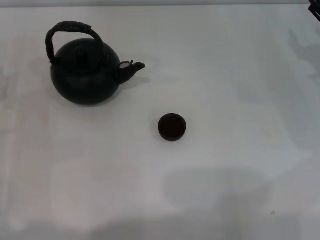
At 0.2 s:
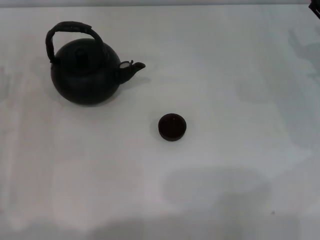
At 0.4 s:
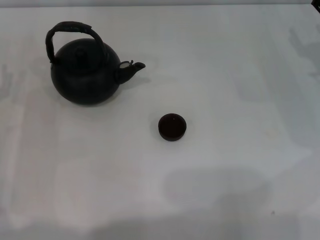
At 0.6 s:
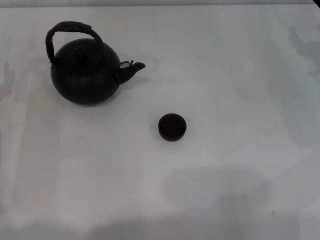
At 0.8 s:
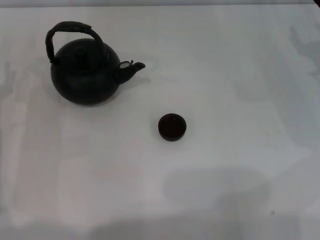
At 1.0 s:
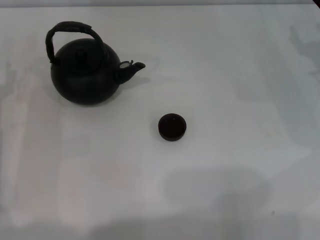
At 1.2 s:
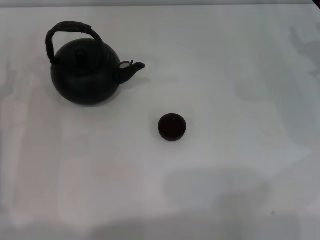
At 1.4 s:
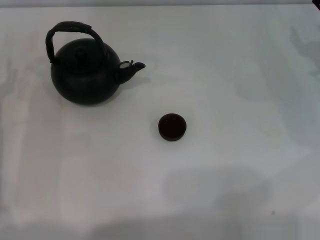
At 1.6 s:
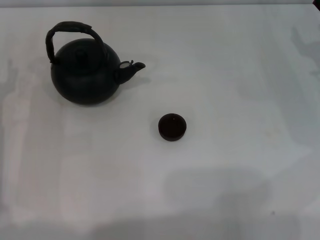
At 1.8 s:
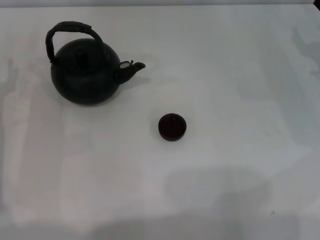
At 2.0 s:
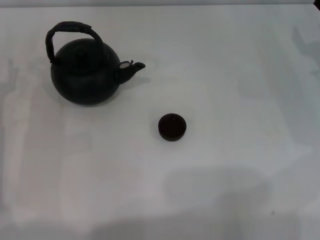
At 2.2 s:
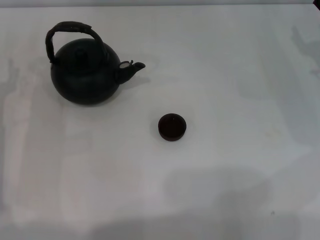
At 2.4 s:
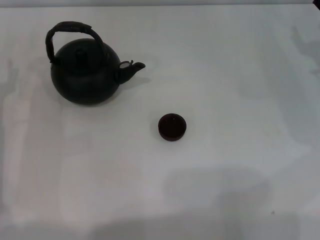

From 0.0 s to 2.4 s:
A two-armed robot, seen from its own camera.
Task of the whole recording: Grasp the handle of the teapot with one hand and pour tea into the teacup.
From 0.0 s to 1.2 s: Both grippers stay about where they are.
From 1.2 s to 2.4 s: Neither gripper changes place.

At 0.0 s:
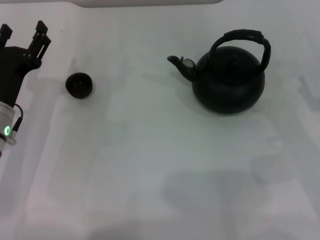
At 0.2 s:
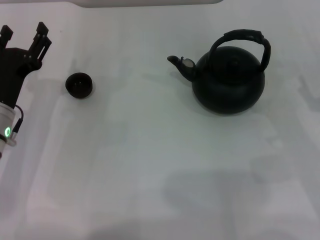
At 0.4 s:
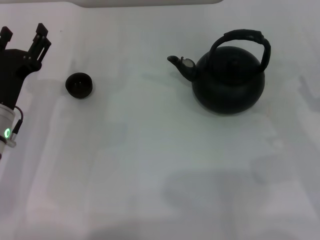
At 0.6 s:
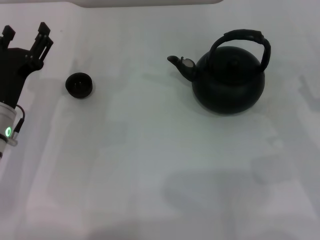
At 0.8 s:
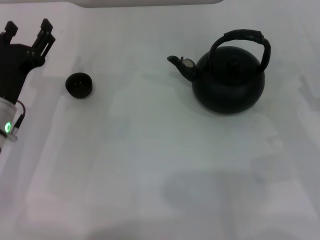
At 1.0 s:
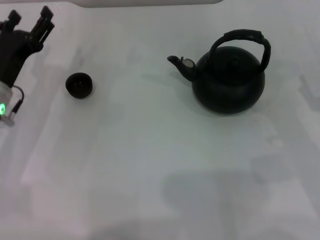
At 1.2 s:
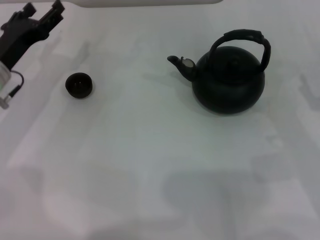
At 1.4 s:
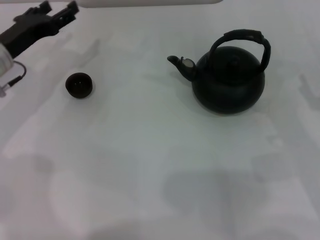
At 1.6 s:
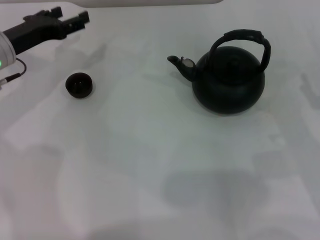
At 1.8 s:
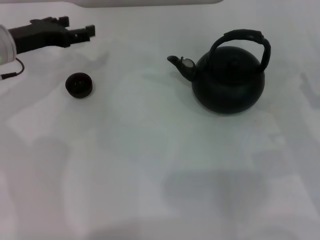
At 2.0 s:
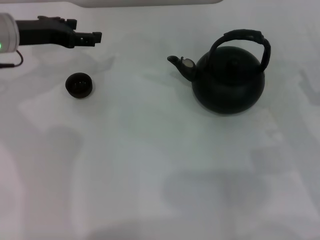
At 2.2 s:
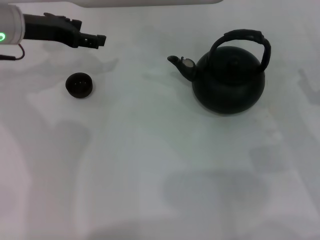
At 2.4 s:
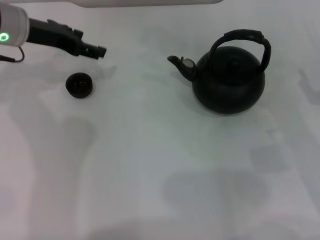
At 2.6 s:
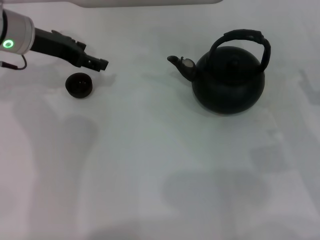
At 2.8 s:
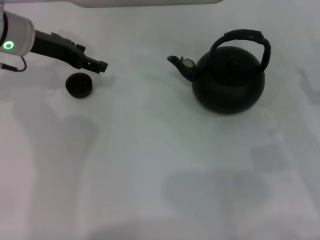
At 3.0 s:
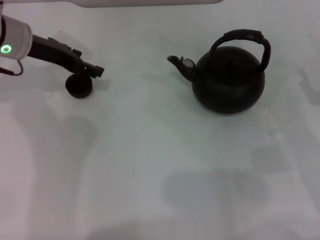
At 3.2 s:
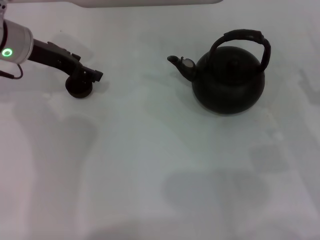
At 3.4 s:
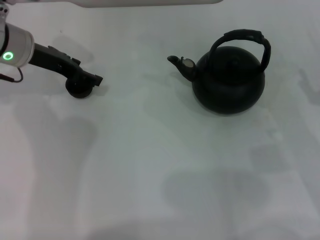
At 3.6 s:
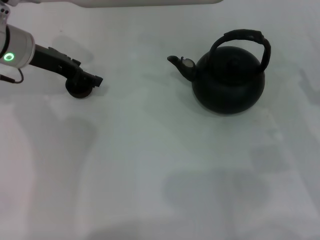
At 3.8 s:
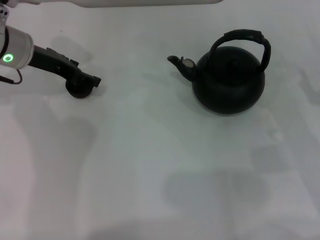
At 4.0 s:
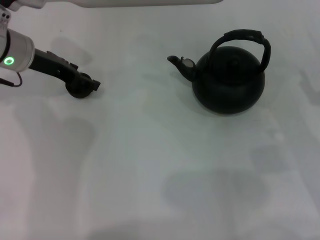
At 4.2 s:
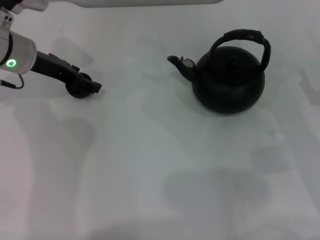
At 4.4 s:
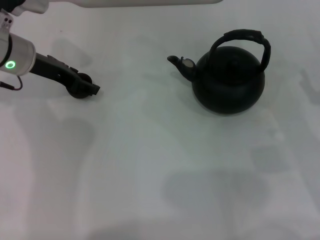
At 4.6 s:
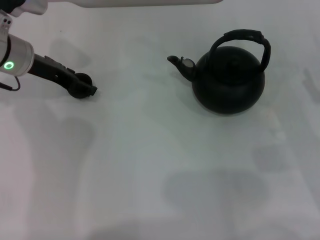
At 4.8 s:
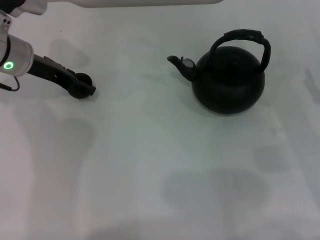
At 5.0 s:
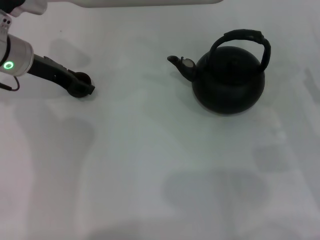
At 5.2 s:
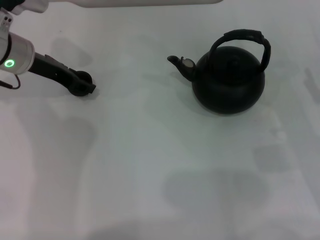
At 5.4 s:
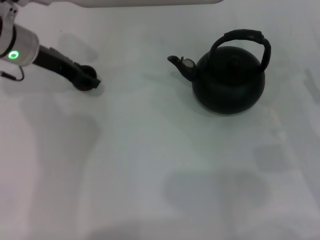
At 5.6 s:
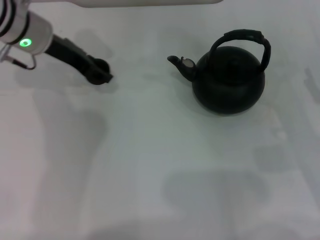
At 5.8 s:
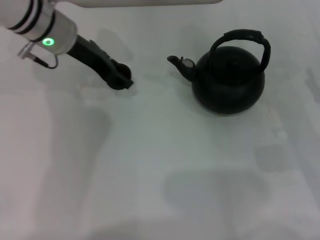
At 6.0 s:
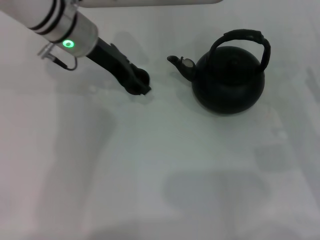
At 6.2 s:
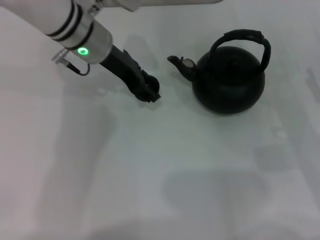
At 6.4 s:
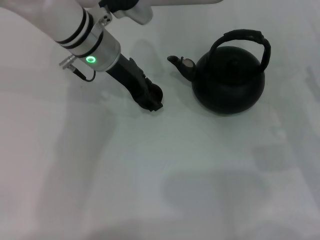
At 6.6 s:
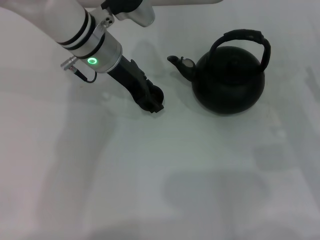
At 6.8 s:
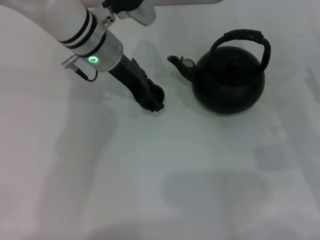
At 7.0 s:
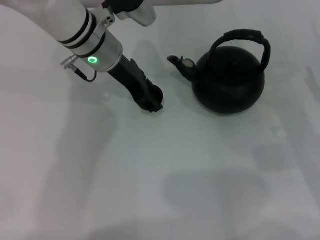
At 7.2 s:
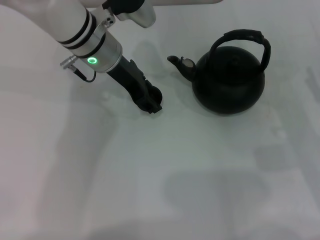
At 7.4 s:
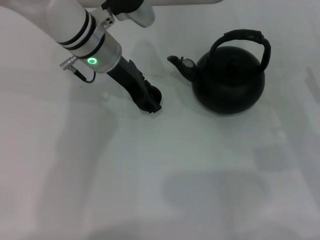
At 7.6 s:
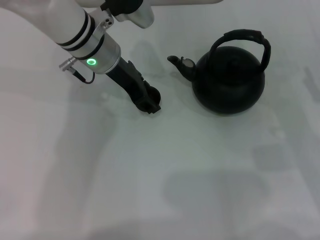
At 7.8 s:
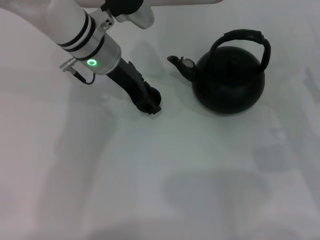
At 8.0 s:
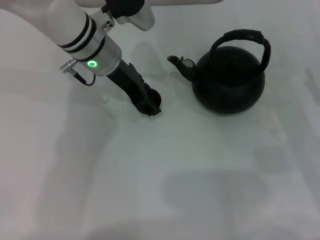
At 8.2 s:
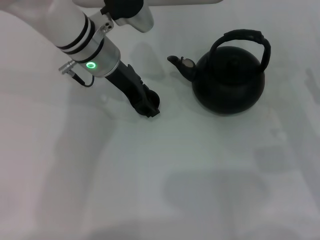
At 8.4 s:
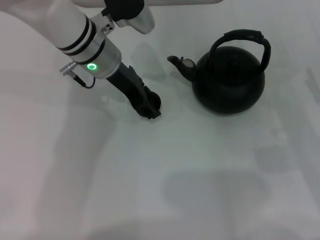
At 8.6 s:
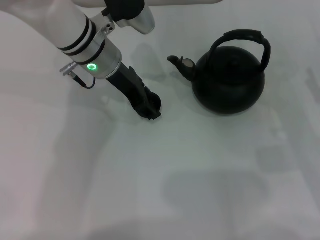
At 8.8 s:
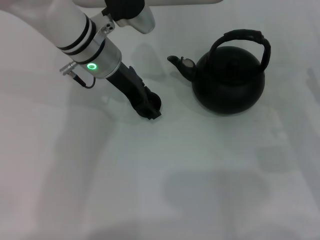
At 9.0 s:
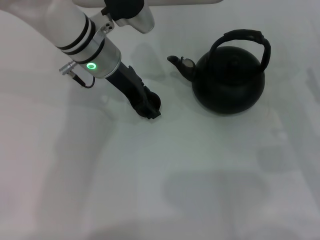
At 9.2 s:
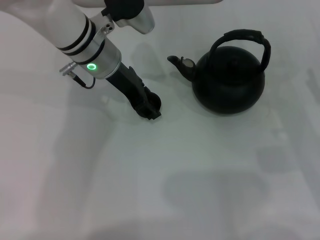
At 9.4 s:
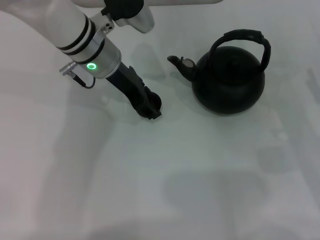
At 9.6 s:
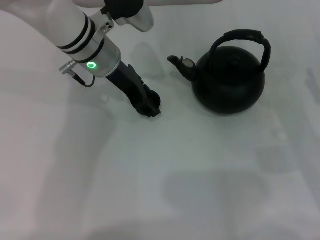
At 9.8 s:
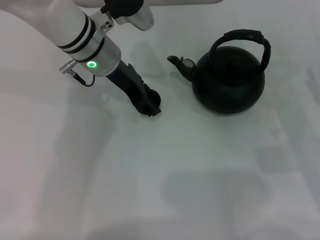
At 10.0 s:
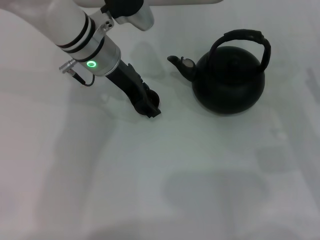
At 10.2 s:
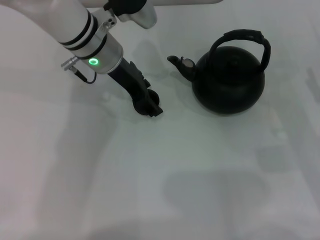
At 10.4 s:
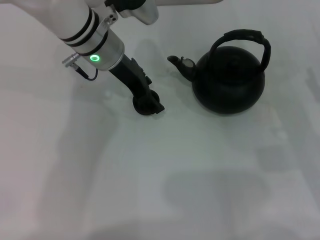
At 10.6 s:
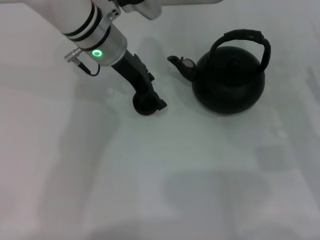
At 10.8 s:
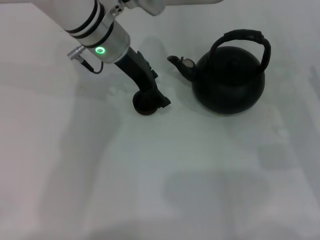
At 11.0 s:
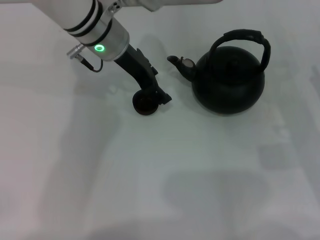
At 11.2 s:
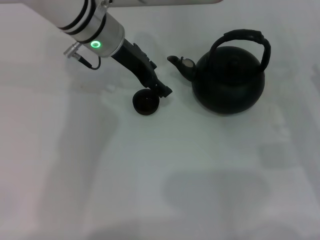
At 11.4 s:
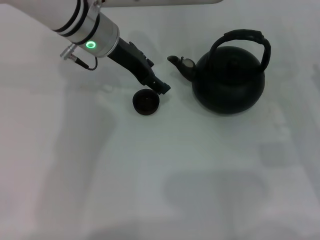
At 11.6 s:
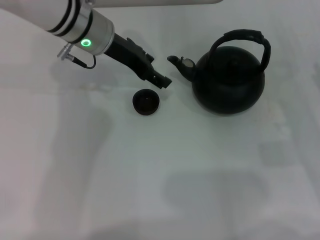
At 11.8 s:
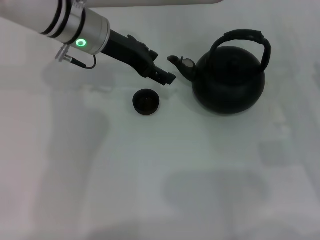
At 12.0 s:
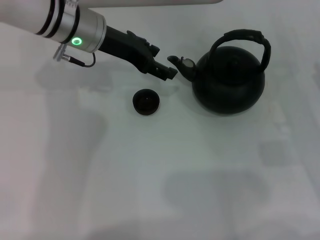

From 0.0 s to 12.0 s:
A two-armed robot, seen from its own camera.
Task of the whole recording: Grasp the handle of the teapot with one hand and pour tea into the teacup.
Step, from 0.0 s to 5.6 s: Pick up the teacup with the left gripper.
Step, from 5.8 s to 10.8 s: Place the teacup in the center of view with the left gripper.
From 0.0 s to 1.6 s: The left gripper is displaced forward and upward by roughly 10 cm.
From 1.6 s to 3.0 s: The left gripper ends up about 5 cm from where it was.
From 3.0 s to 4.4 s: The grippers move only a little.
From 4.4 s to 6.0 s: The left gripper moves to the right, some 10 cm.
From 6.0 s to 7.6 s: There are only small adjustments of the grippers.
From 7.6 s to 9.0 s: Neither gripper changes place.
From 9.0 s to 10.4 s: The left gripper opens up.

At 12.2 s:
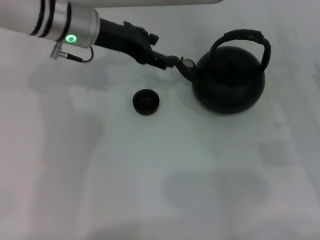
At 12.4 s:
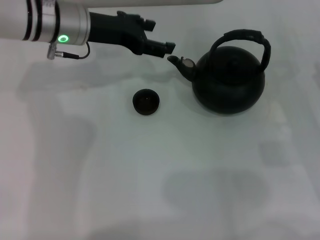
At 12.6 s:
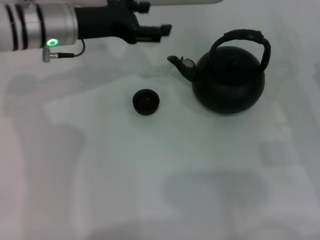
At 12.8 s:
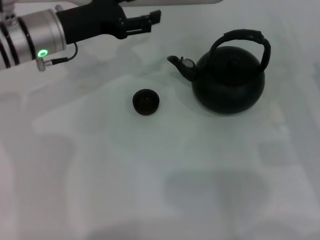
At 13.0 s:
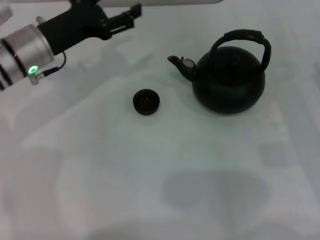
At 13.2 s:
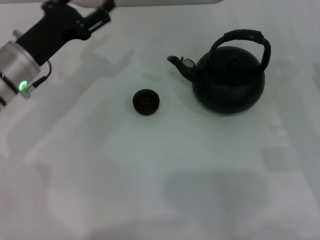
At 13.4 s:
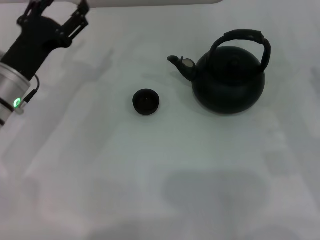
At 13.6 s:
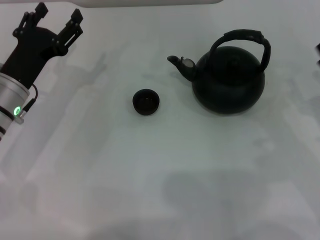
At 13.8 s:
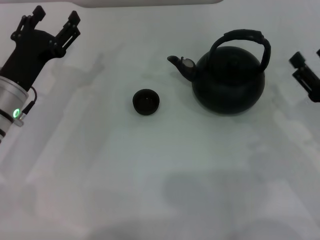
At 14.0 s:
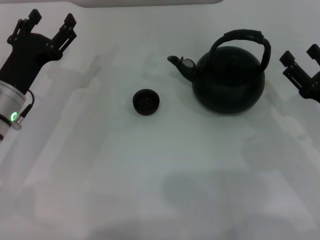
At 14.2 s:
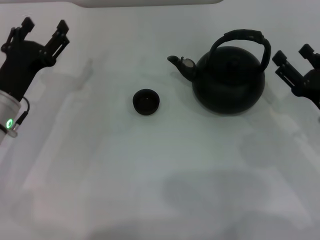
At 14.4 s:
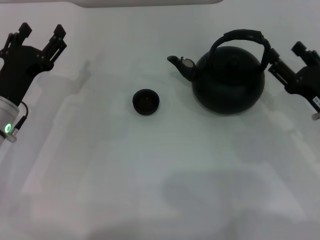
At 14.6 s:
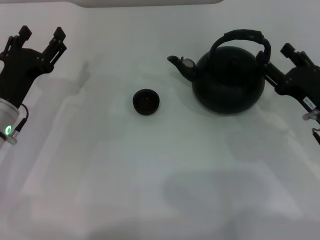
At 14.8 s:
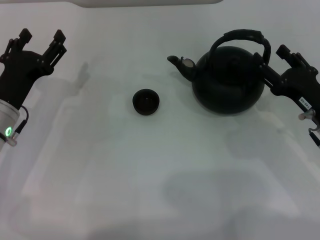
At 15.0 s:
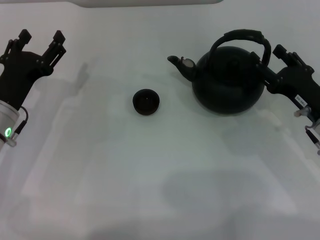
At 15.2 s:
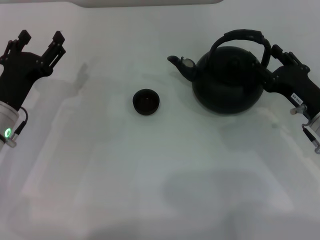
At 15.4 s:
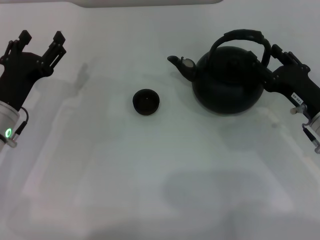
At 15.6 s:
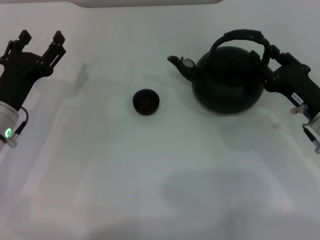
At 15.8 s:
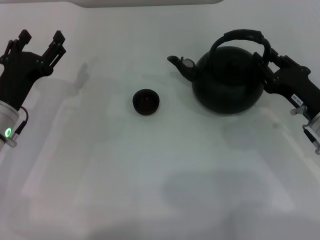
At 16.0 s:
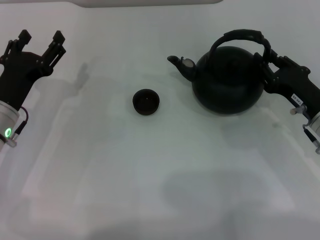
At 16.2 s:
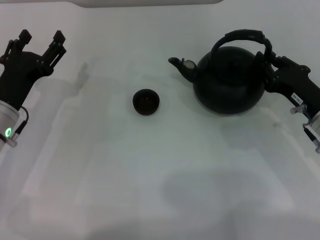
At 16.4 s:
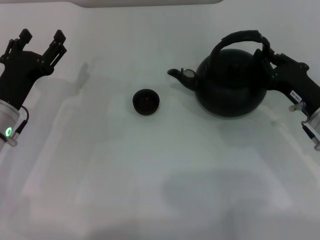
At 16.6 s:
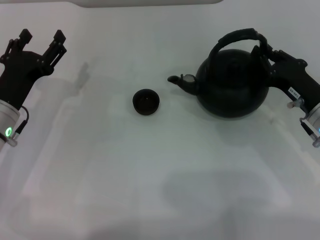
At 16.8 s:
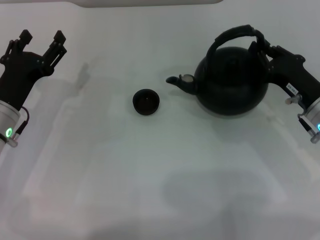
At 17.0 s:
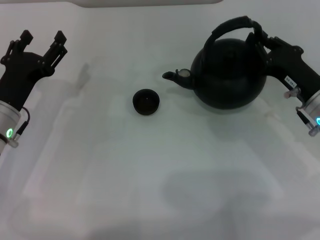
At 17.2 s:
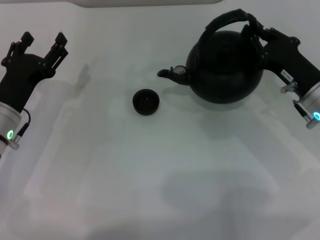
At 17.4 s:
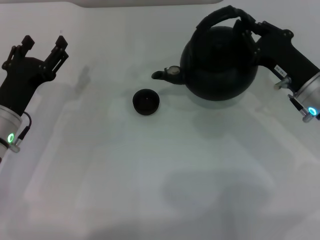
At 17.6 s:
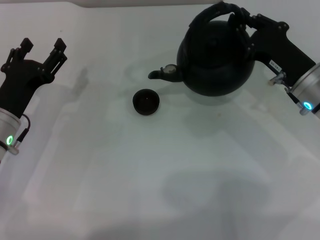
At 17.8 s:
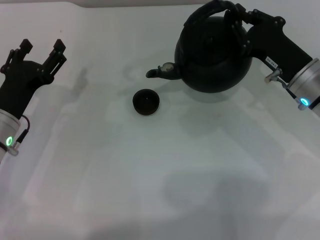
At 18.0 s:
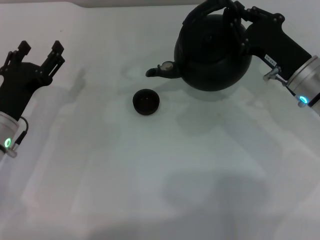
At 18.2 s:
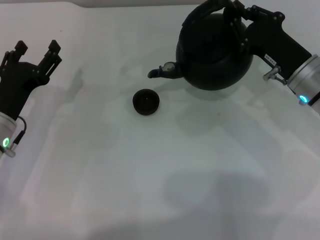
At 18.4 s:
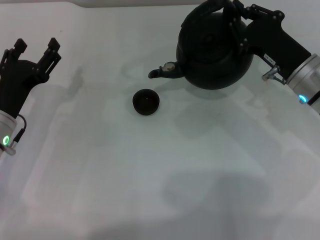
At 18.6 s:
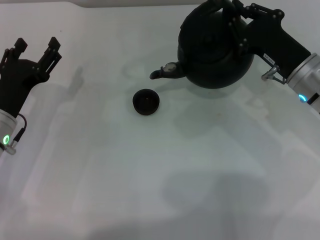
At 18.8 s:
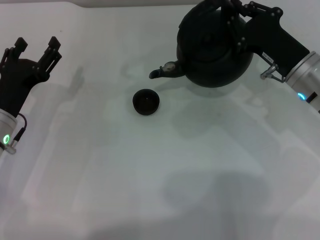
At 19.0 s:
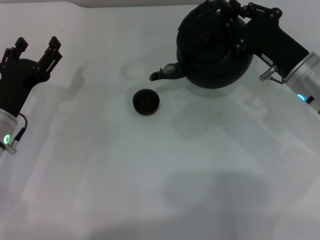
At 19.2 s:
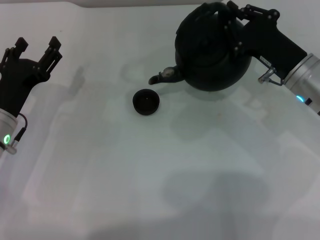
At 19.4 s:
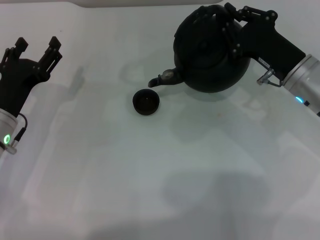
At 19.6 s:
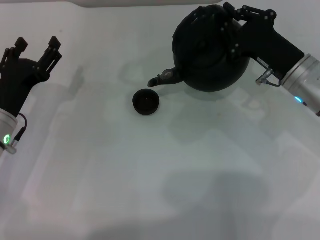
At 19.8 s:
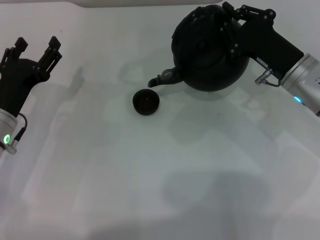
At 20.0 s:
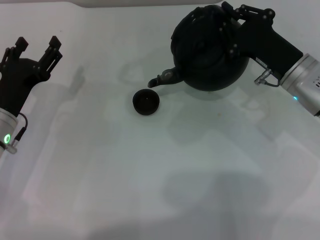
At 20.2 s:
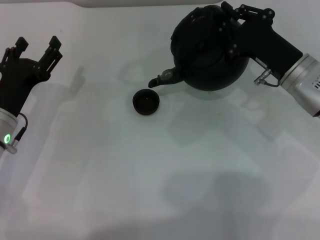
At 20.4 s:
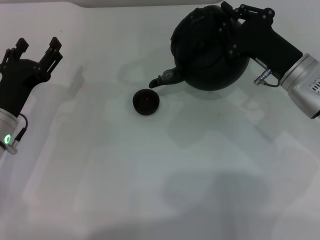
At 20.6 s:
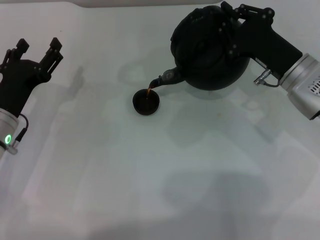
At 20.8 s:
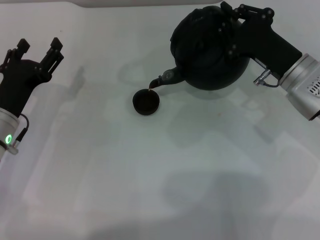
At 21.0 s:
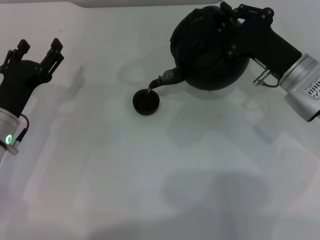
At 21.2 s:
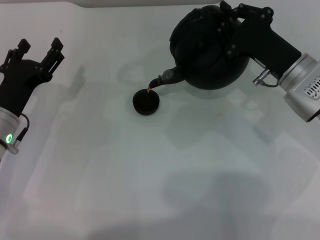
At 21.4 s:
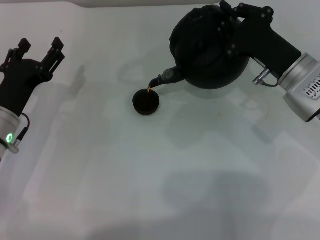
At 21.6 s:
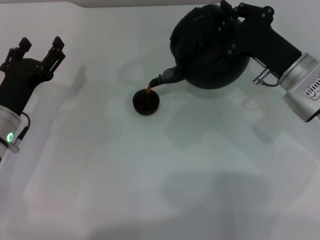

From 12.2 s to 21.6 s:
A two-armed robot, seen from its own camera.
Task of the whole recording: Grasp the handle of the teapot with one hand and pour tea into the teacup.
Step, from 12.2 s to 17.0 s: Pick up the teapot with the right gripper.
From 12.2 s to 13.8 s: The left gripper heads backward, downward and to the left, covering some 20 cm.
From 13.8 s to 15.4 s: The right gripper shifts by some 5 cm.
From 15.4 s to 17.0 s: The right gripper closes up.
From 18.4 s to 21.6 s: The grippers move only a little.
